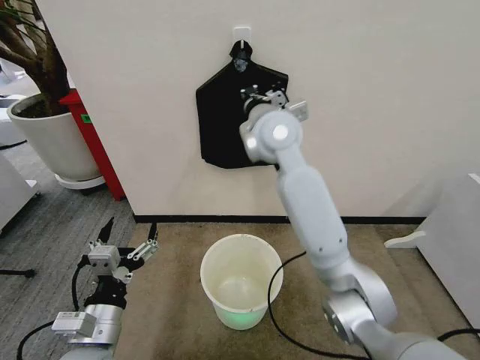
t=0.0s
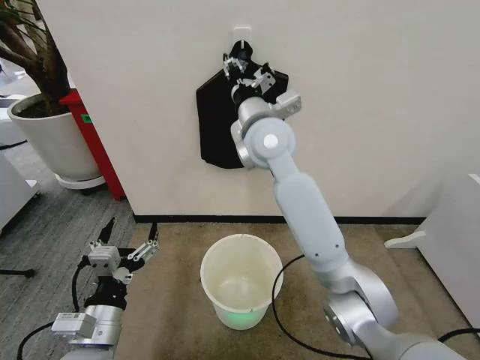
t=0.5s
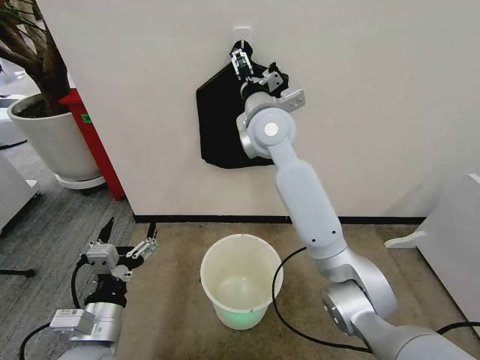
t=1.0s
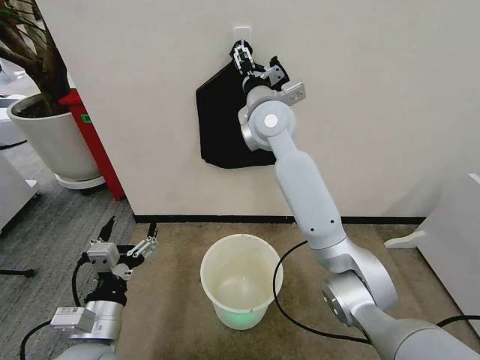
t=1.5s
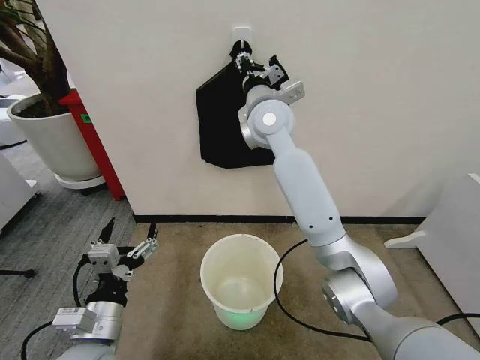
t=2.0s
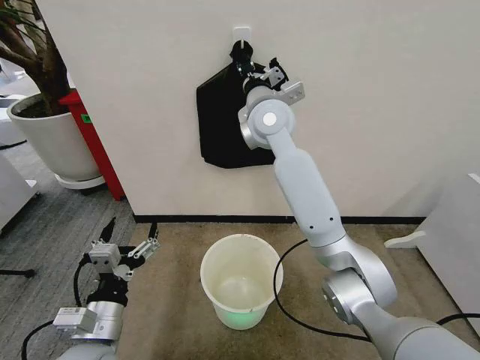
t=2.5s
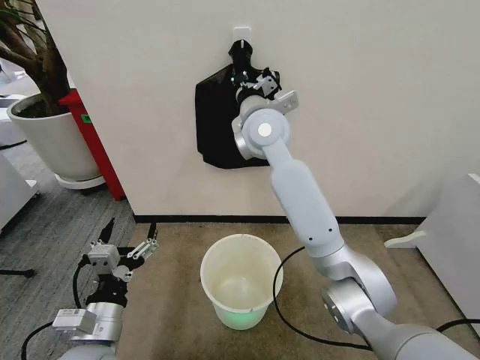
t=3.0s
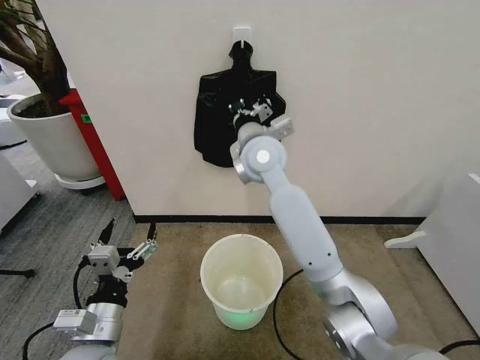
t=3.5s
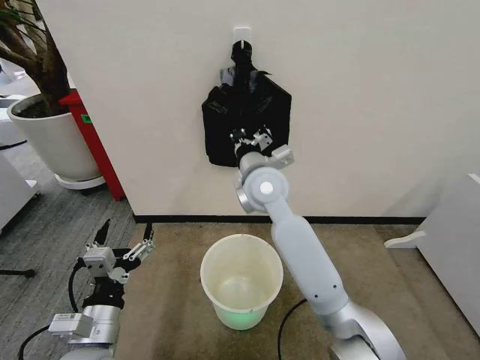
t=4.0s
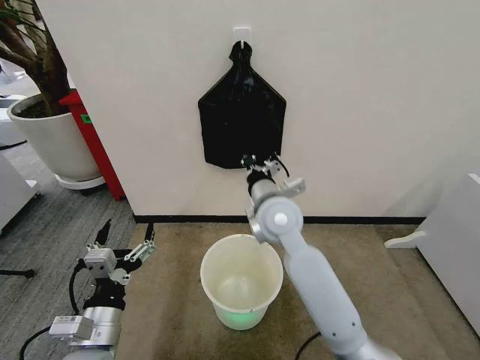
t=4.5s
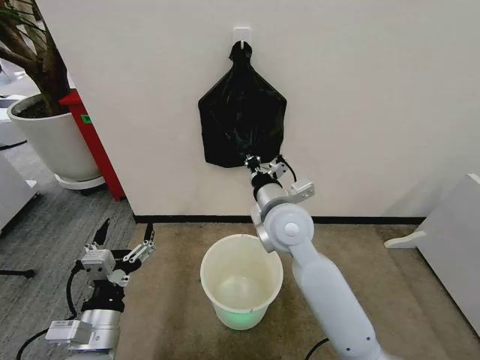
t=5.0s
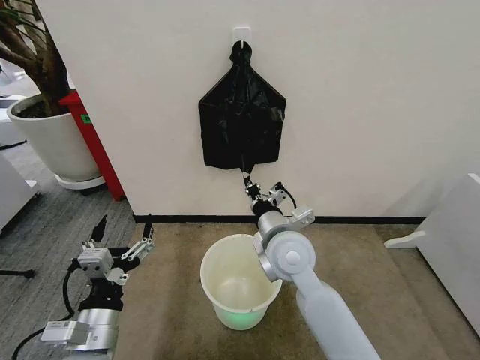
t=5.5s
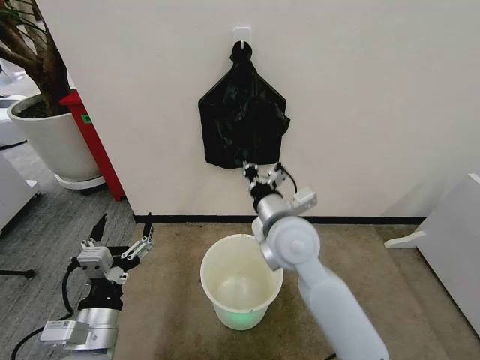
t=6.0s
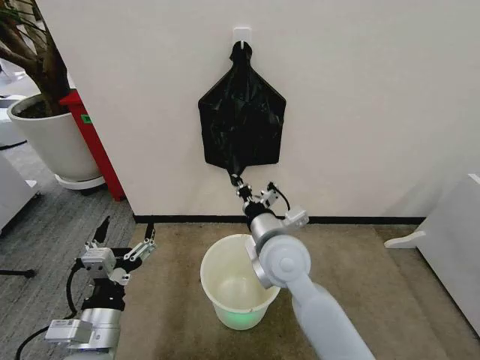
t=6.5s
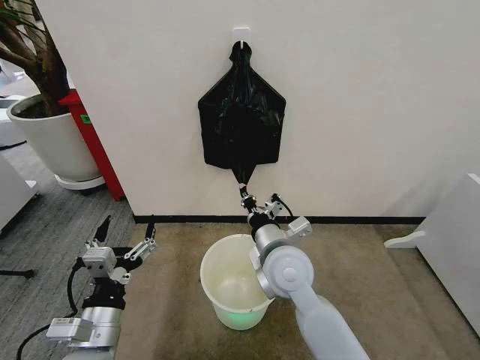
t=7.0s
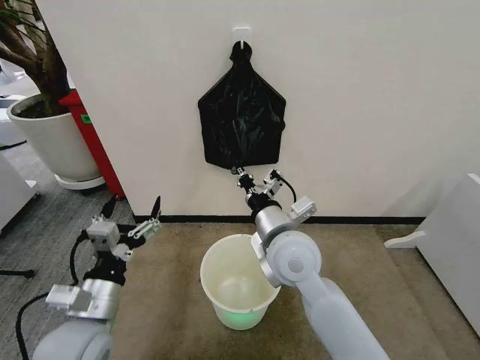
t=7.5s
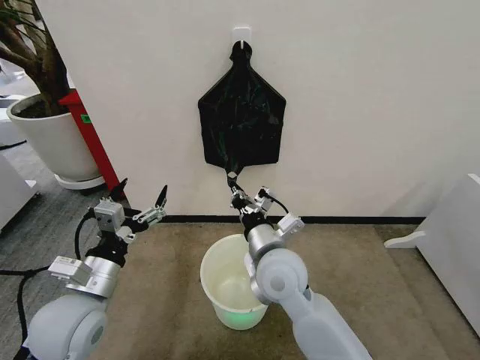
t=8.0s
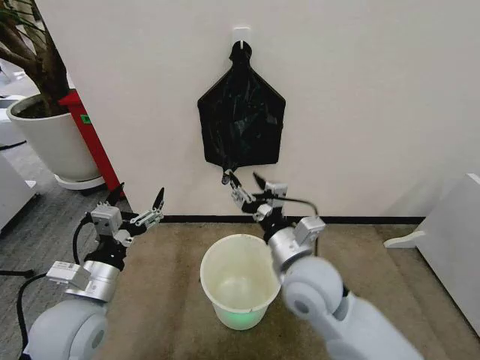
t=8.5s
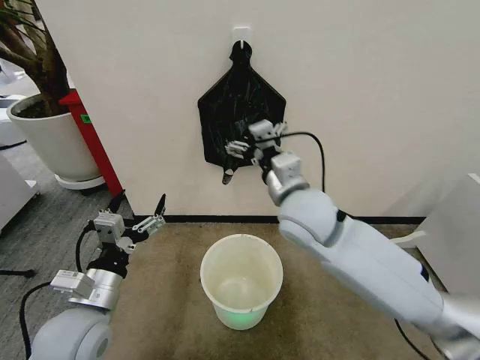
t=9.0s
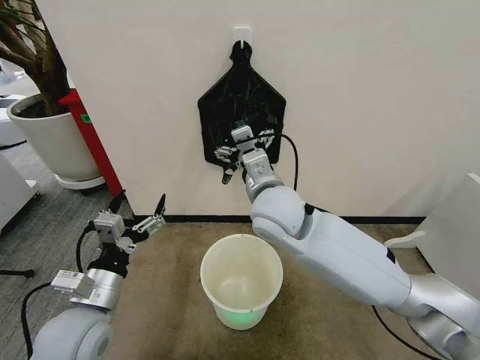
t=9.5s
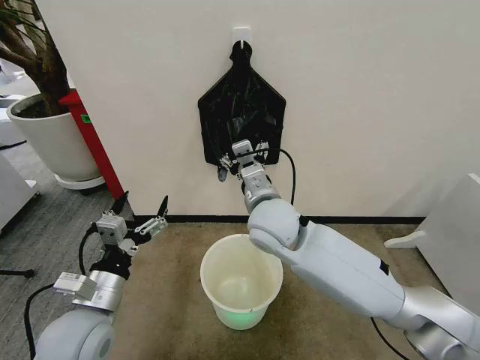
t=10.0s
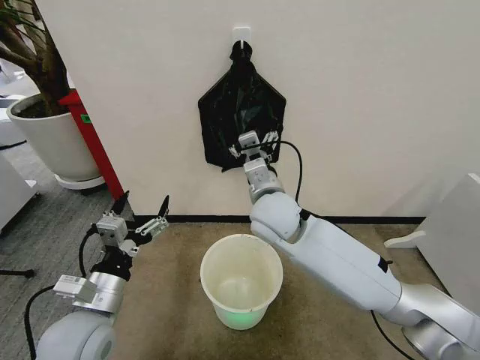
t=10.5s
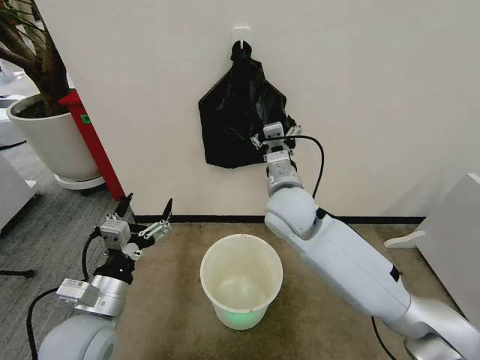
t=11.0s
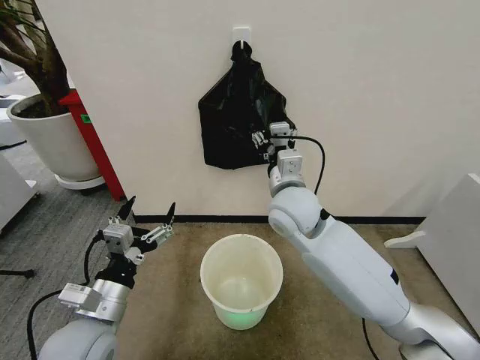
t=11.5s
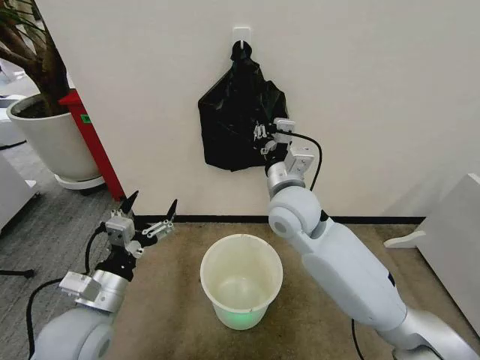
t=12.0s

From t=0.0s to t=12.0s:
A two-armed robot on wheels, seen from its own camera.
Task of the whole recording: Place the garbage bag over the trash bin.
From t=0.0s to t=2.0s: The right gripper opens its fingers.
From t=2.0s to t=4.0s: The right gripper heads downward and backward, covering approximately 15 cm, and closes.
From t=4.0s to t=6.0s: The right gripper moves backward, about 10 cm.
From t=6.0s to t=8.0s: The right gripper moves up and down over some 5 cm, changing direction 2 times, while the left gripper shifts some 5 cm forward.
From t=8.0s to t=10.0s: The right gripper heads forward and upward, covering roughly 10 cm, and opens up.
From t=10.0s to t=12.0s: The right gripper closes up.

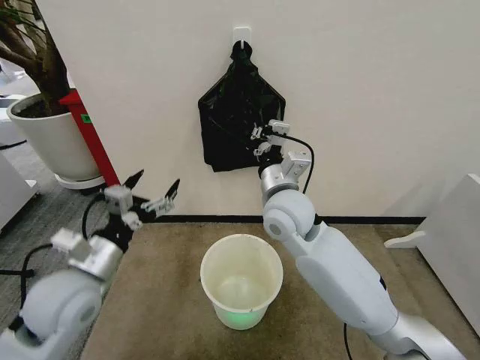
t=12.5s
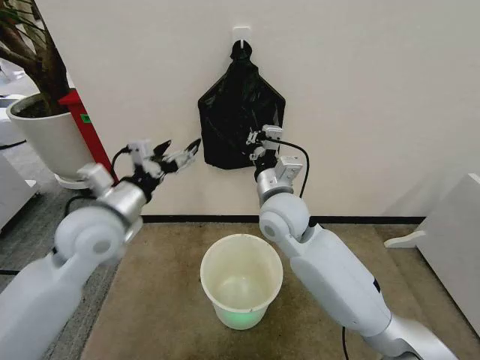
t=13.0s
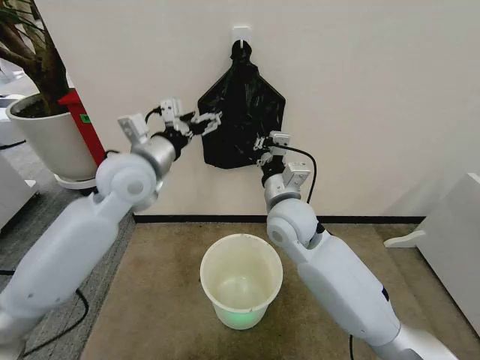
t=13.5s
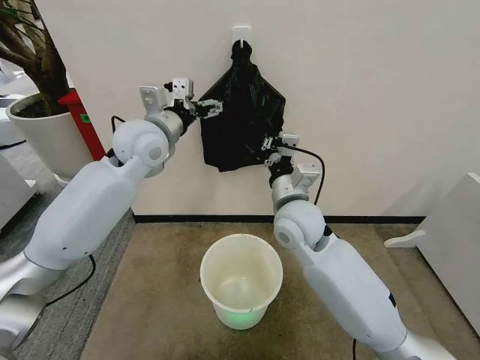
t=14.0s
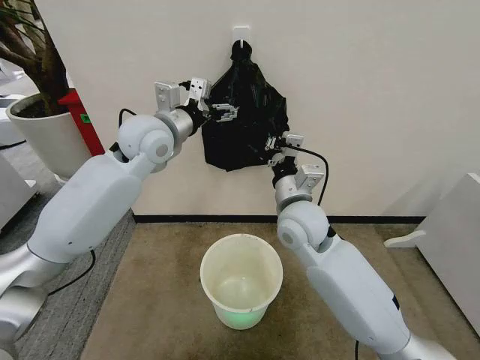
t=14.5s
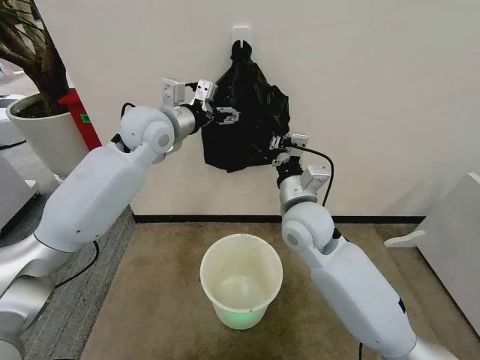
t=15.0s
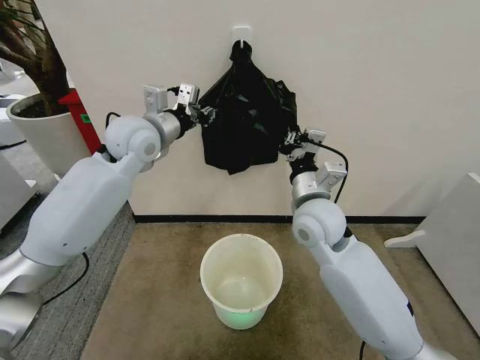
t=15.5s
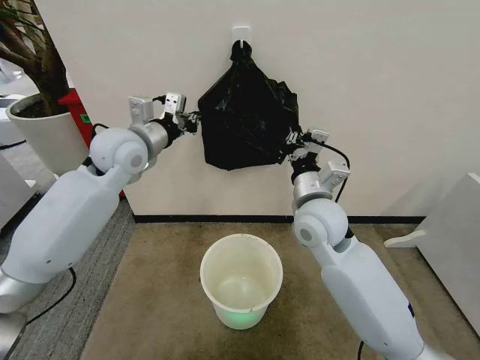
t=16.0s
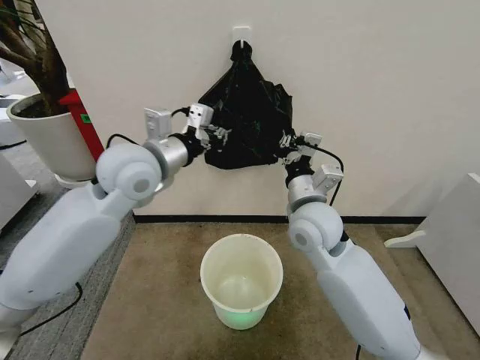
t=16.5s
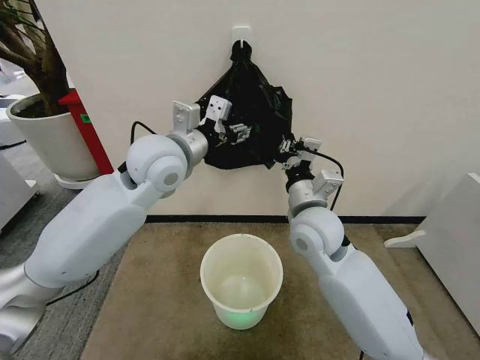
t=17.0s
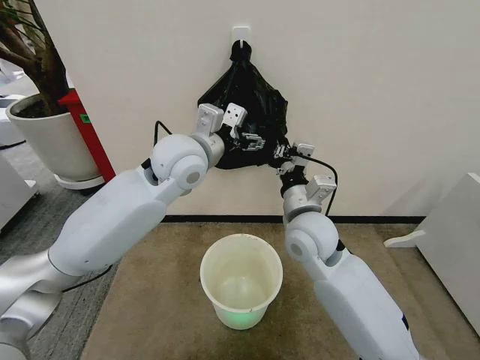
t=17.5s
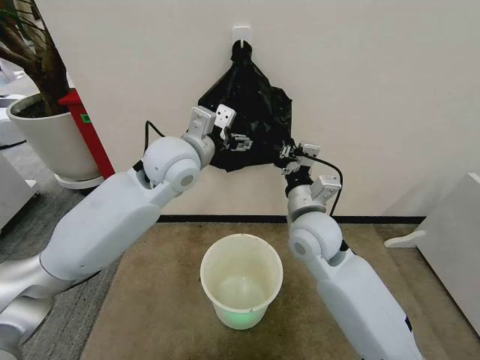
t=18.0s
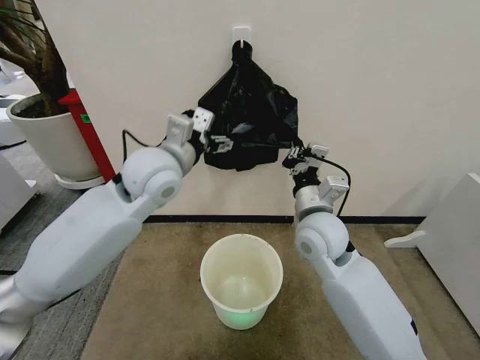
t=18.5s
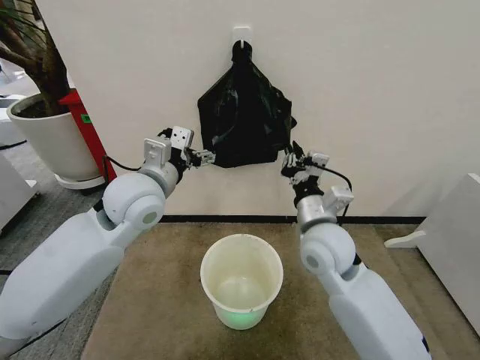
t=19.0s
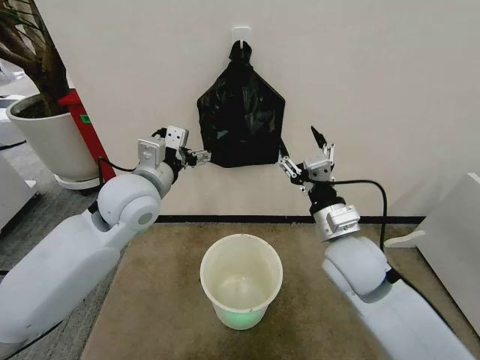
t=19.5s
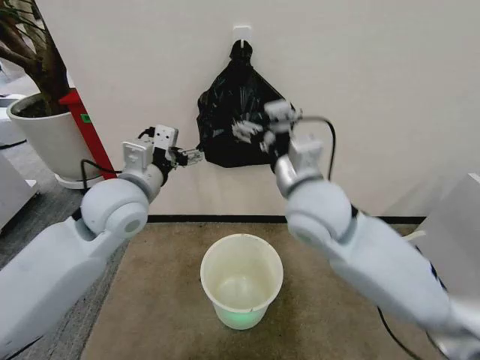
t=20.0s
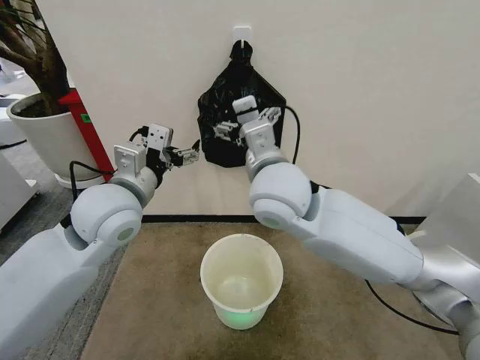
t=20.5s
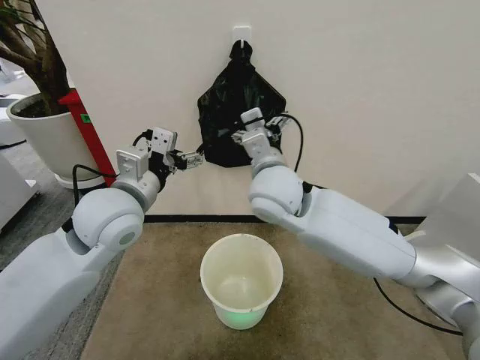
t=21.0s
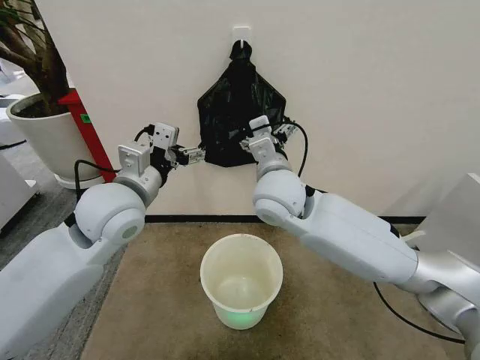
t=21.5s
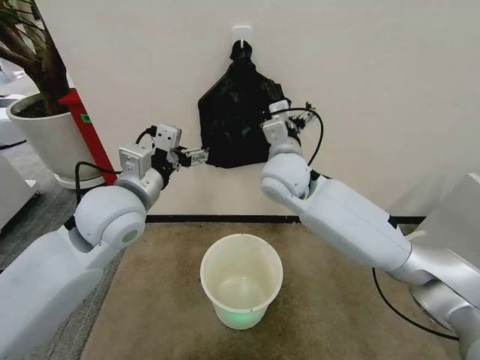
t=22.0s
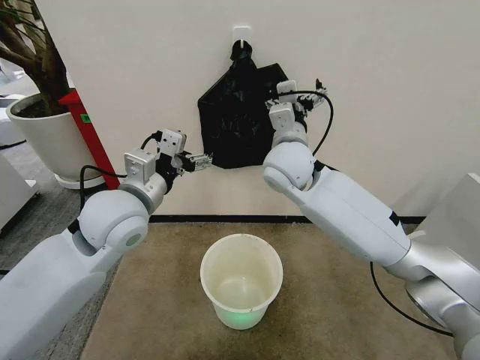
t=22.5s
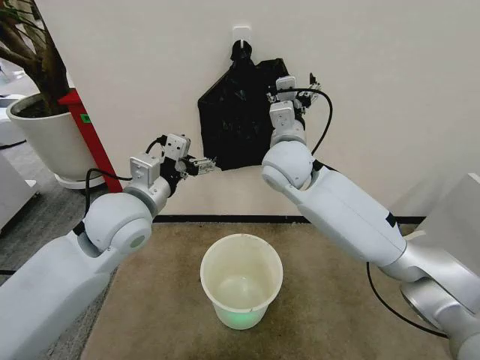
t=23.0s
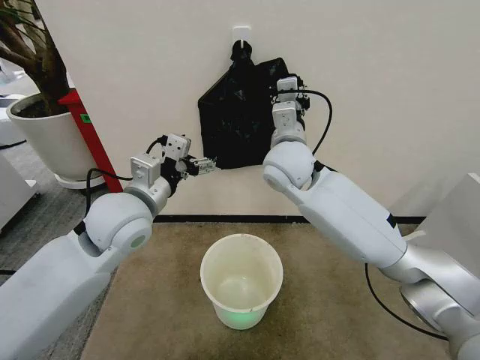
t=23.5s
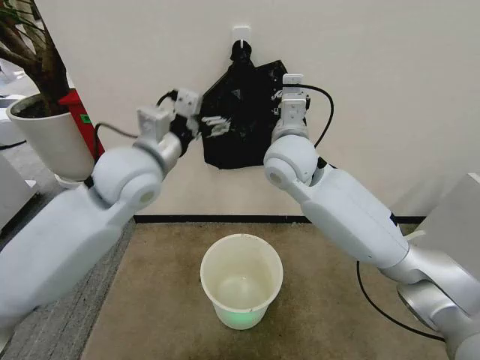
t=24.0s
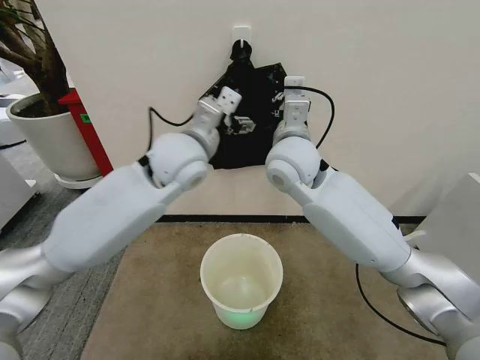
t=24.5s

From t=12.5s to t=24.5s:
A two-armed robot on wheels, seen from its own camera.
Task of the whole recording: Place the garbage bag over the trash bin.
From t=12.5s to t=14.5s: The left gripper goes approximately 30 cm forward, upward and to the right.
From t=14.5s to t=16.5s: The left gripper is displaced backward by roughly 10 cm, and closes its fingers.
From t=16.5s to t=18.5s: The left gripper opens up.
From t=18.5s to t=20.5s: The left gripper heads backward and to the left, covering approximately 10 cm. Meanwhile the right gripper is displaced upward and to the left by some 15 cm, and opens.
From t=20.5s to t=22.5s: The right gripper is displaced forward by roughly 10 cm.
From t=22.5s to t=24.5s: The left gripper shifts about 10 cm upward and forward. Meanwhile the right gripper closes up.

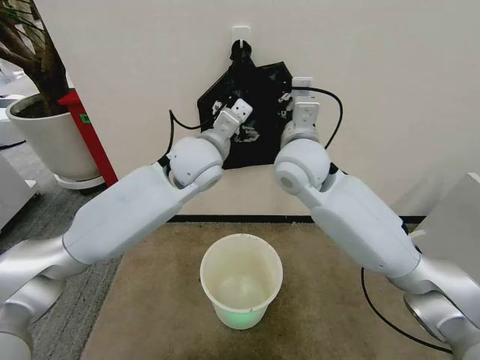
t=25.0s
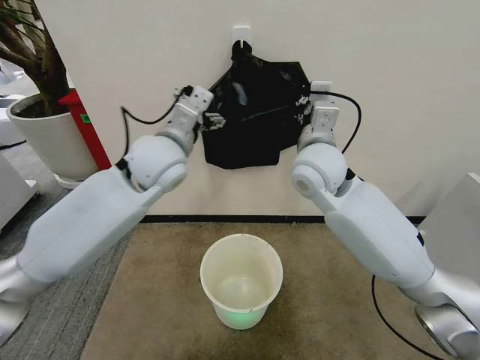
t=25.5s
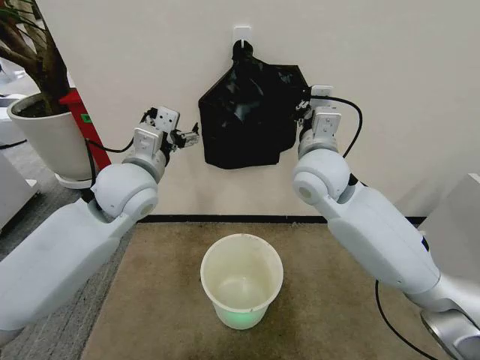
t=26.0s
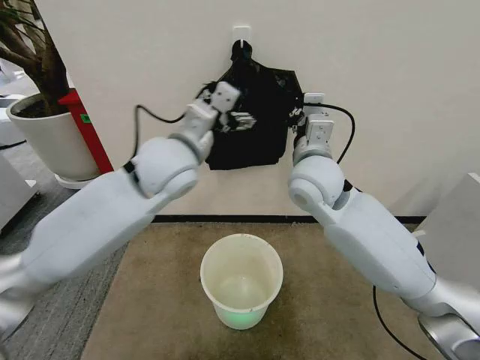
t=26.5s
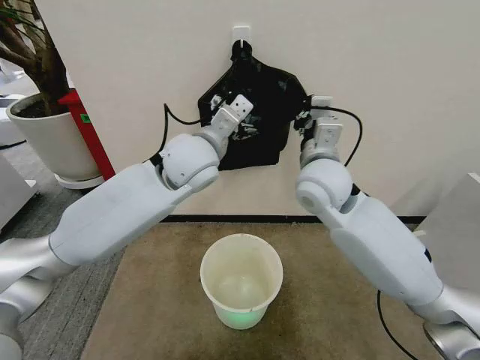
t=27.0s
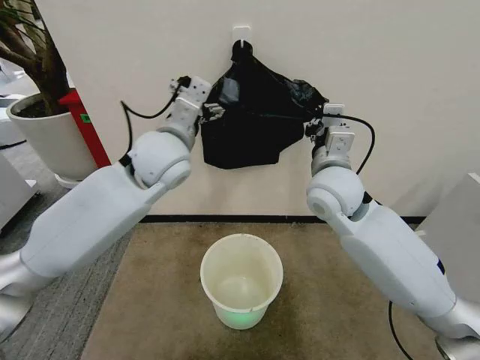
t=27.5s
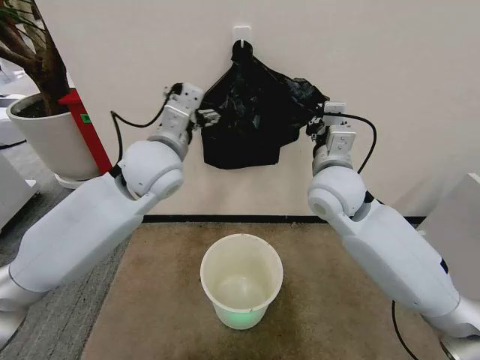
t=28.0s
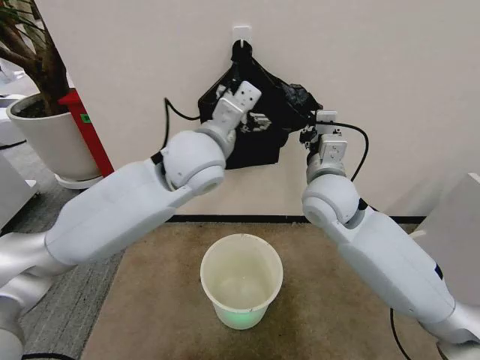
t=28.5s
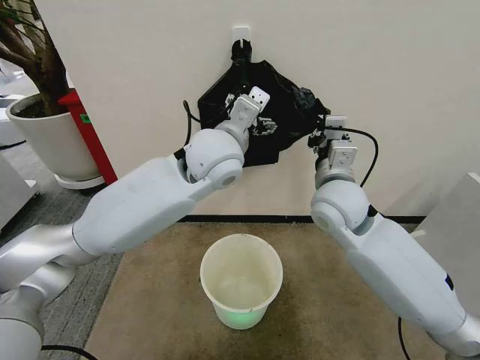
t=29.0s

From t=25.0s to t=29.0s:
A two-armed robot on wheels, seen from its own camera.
Task of the whole recording: Place the garbage bag over the trash bin.
From t=25.0s to t=27.0s: The right gripper changes place by some 5 cm; the left gripper goes to the left and returns, roughly 10 cm each way.
From t=27.0s to t=29.0s: The right gripper moves about 5 cm.
